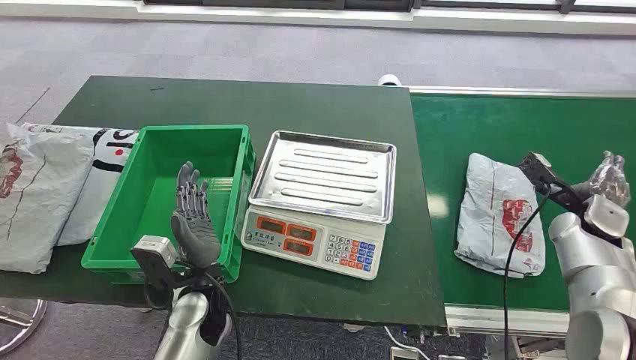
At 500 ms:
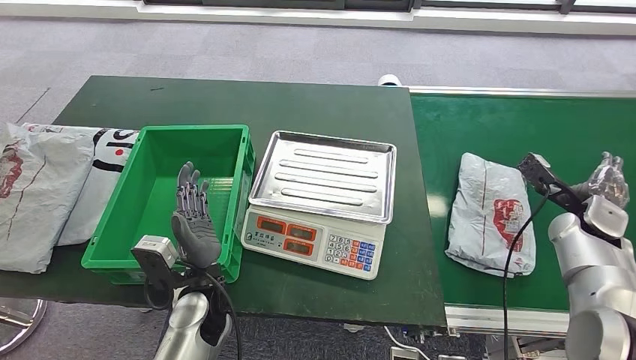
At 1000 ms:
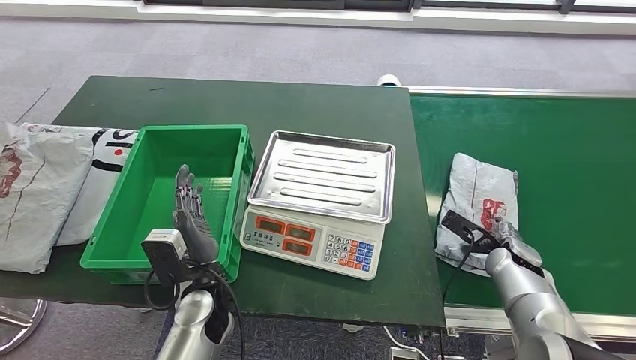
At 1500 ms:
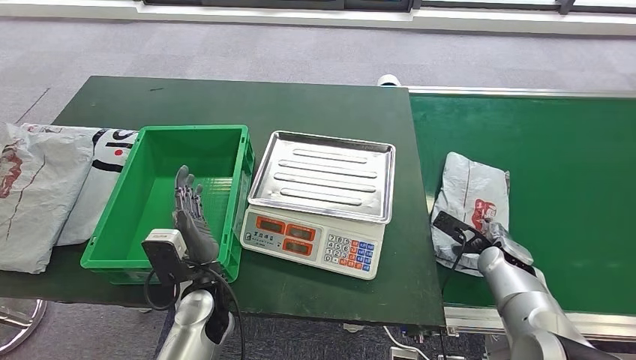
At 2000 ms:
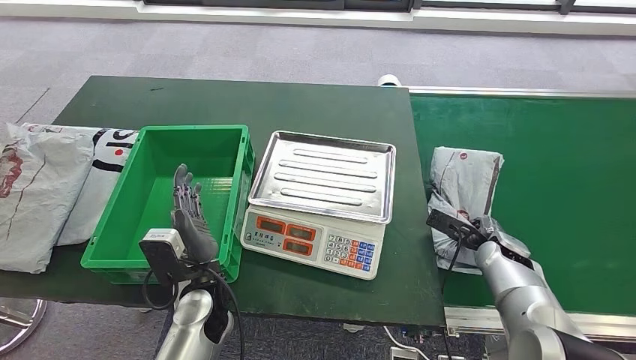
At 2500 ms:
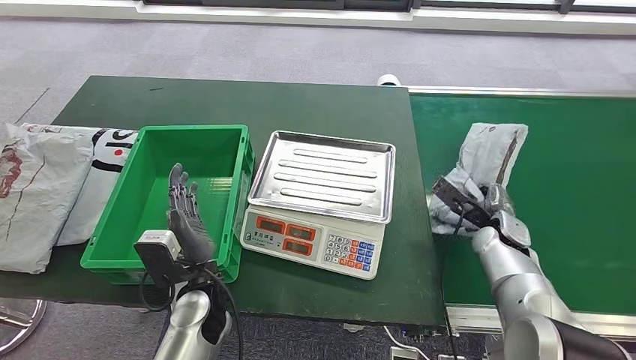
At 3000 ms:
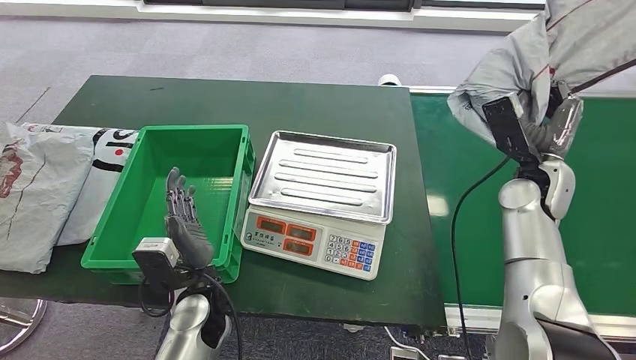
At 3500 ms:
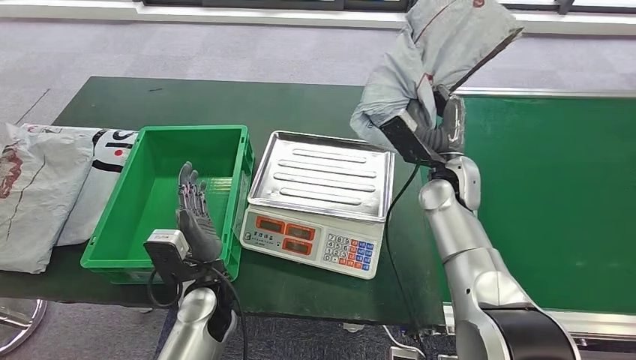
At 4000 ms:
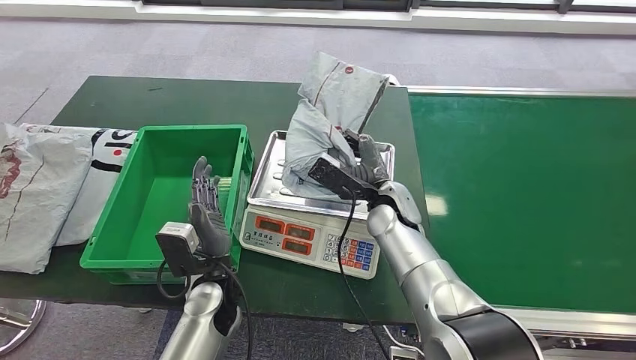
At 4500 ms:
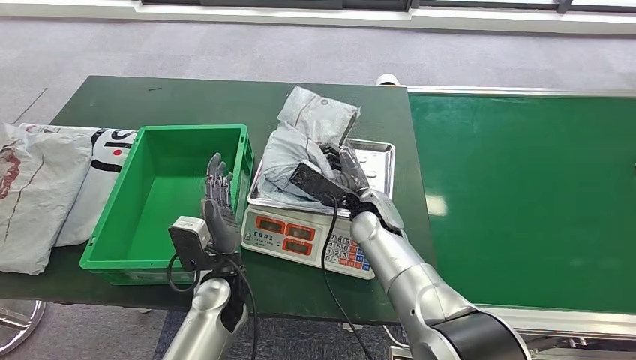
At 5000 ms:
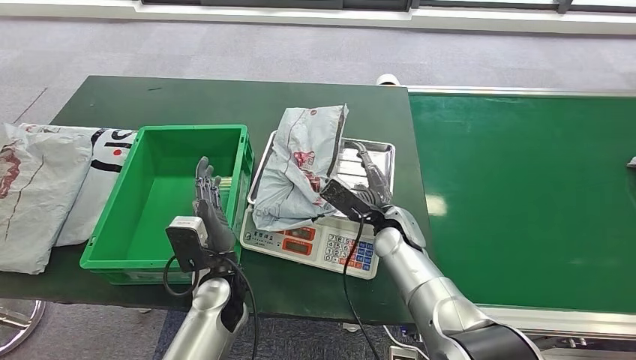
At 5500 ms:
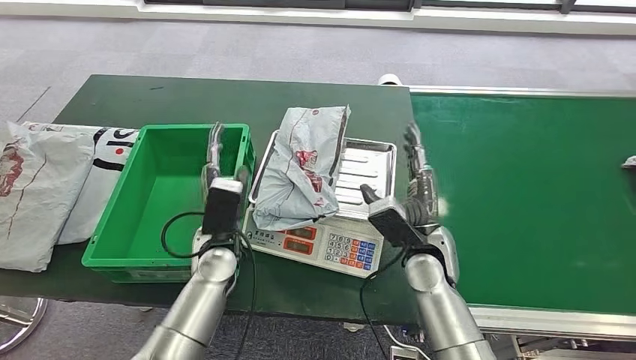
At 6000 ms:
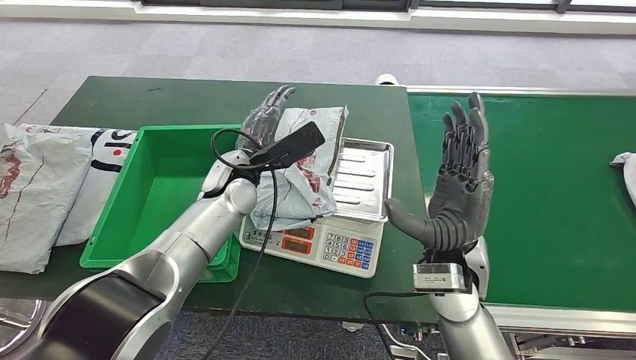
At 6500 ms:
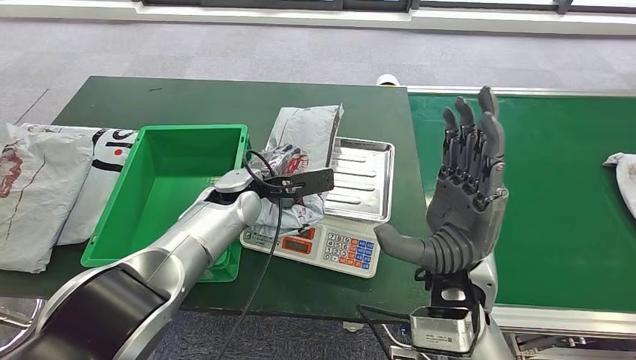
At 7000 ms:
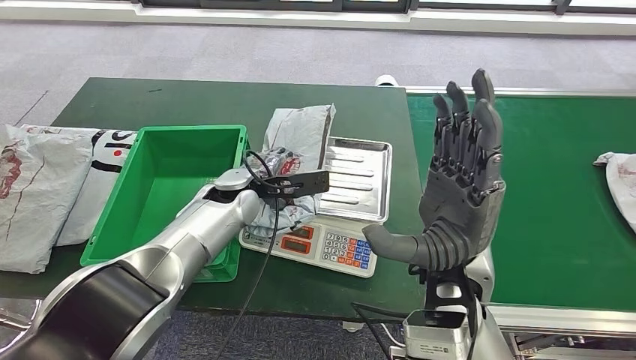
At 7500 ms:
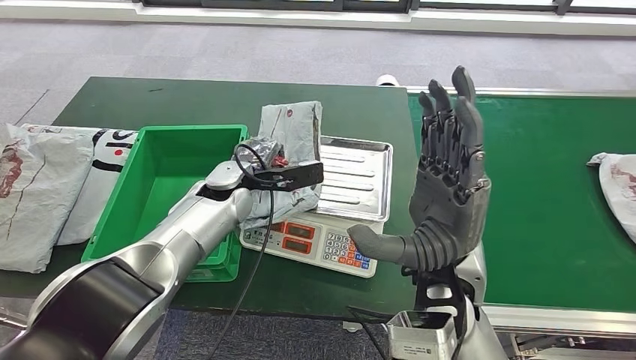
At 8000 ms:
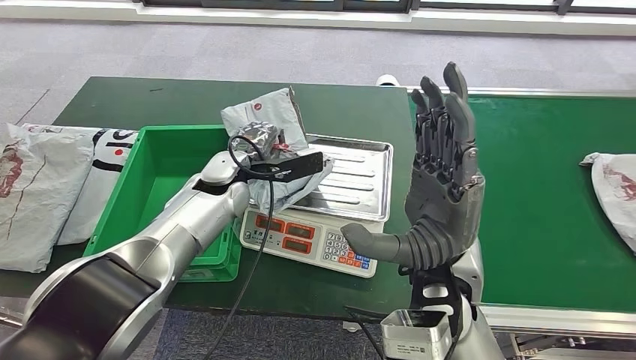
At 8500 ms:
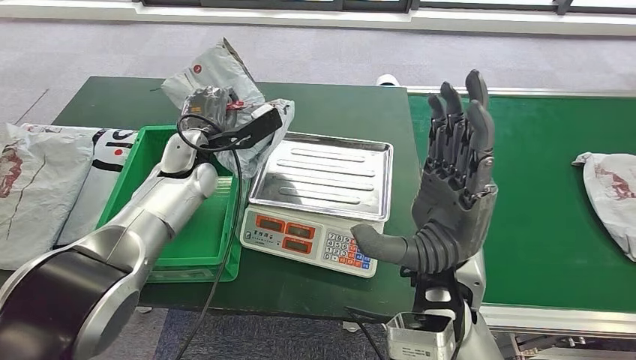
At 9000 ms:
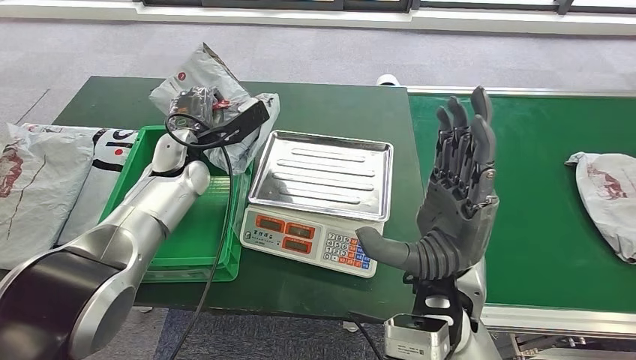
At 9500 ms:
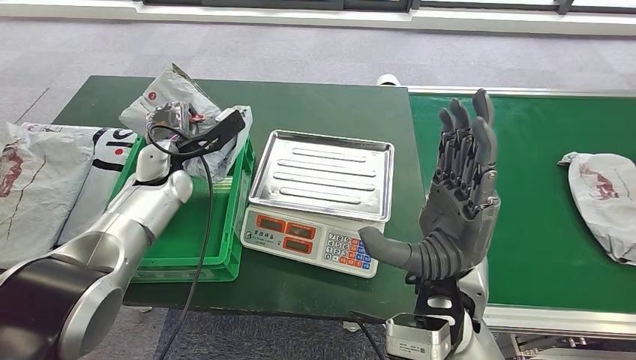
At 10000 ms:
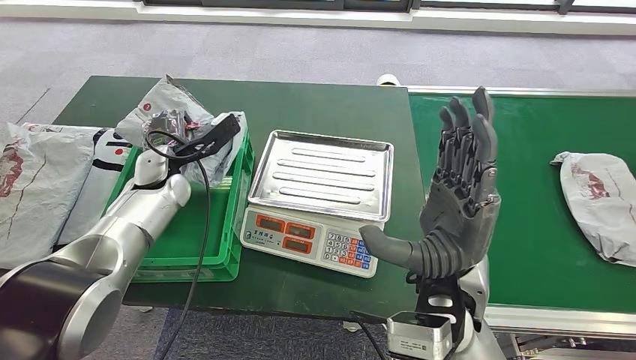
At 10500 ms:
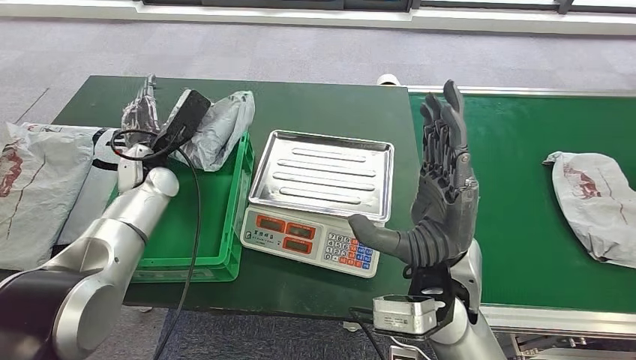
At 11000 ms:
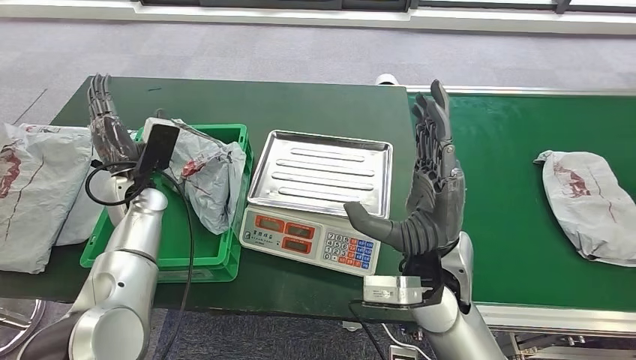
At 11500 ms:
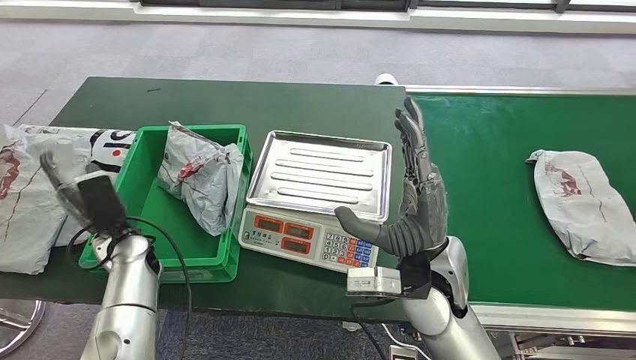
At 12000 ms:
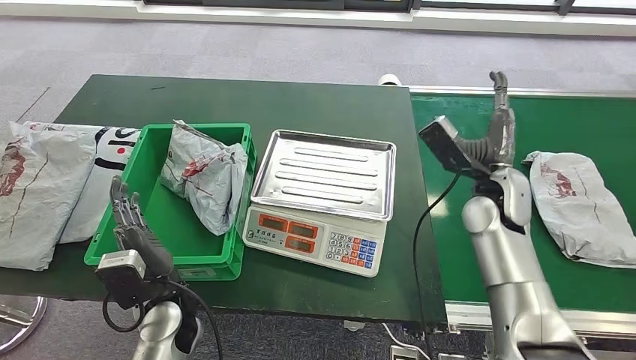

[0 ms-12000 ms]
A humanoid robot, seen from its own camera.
Step, 0 ms to 2500 ms: Take the parcel off the conveyor belt.
Step, 3000 ms to 5500 ms: Place the parcel onto the inbound machine.
Step, 6000 ms to 9000 ms: Pick up the parcel from the inbound machine.
Step, 9500 ms to 11000 ms: Put the parcel inside the courier box.

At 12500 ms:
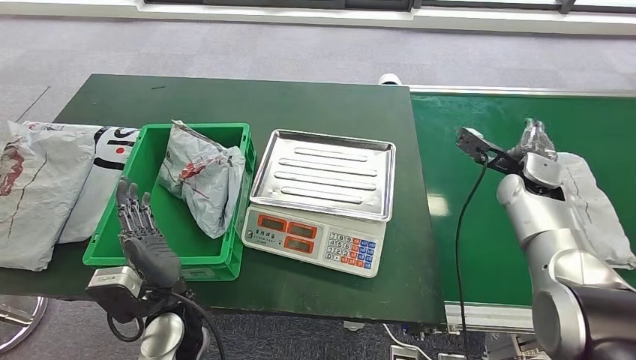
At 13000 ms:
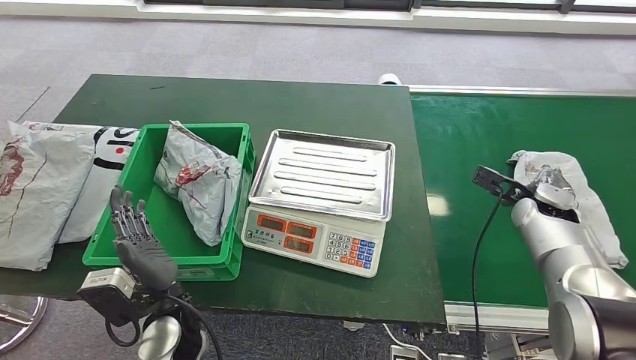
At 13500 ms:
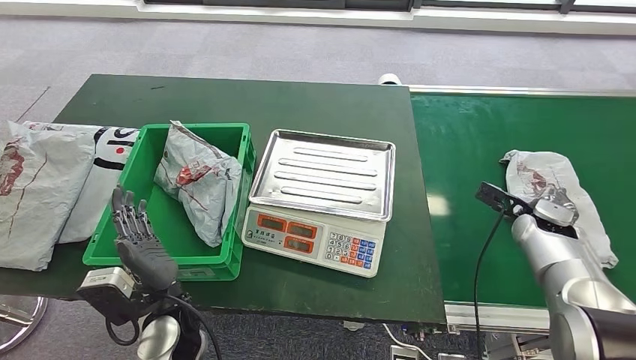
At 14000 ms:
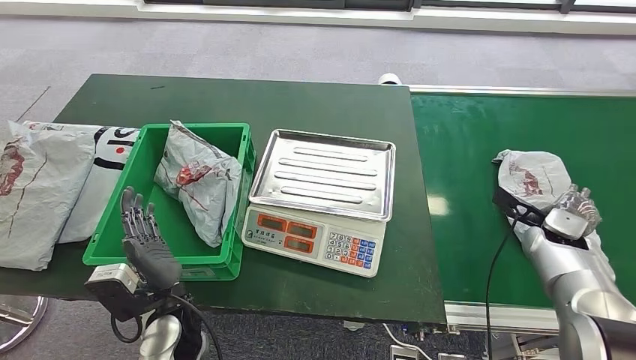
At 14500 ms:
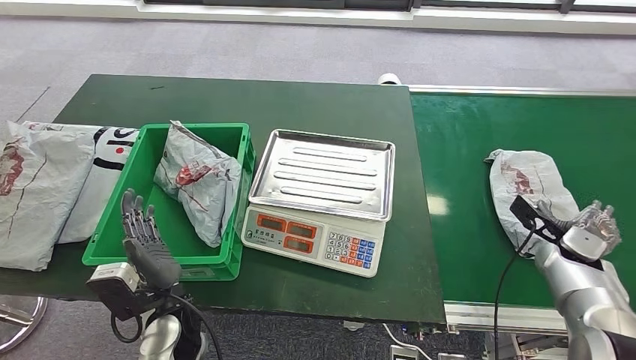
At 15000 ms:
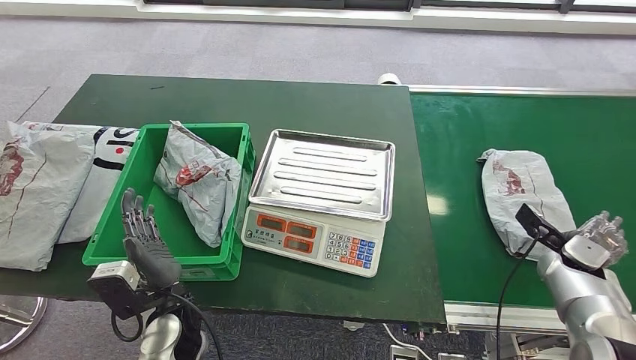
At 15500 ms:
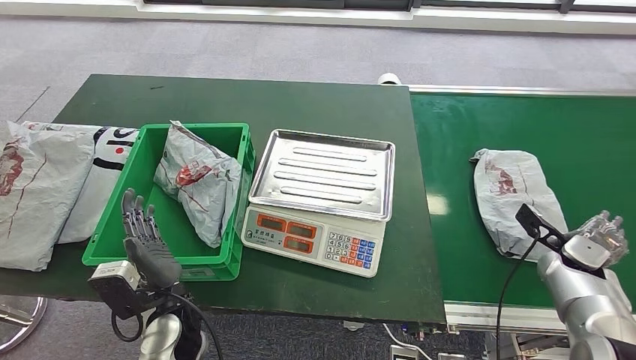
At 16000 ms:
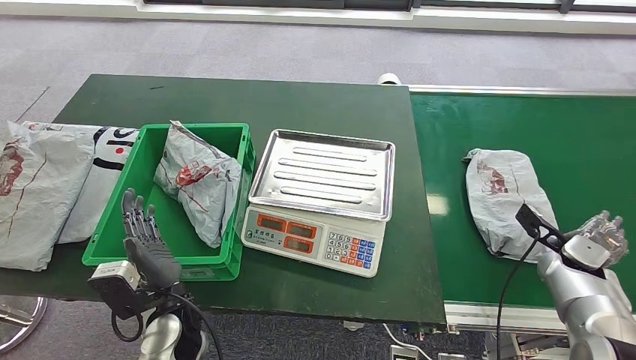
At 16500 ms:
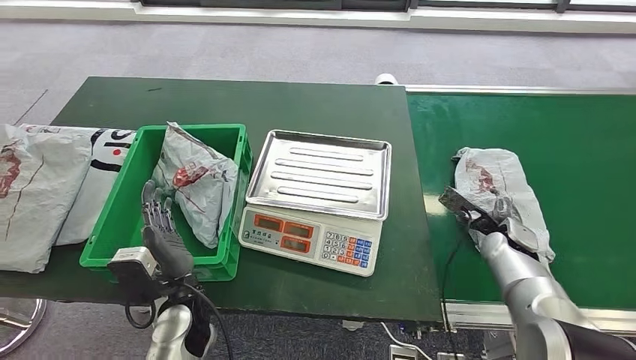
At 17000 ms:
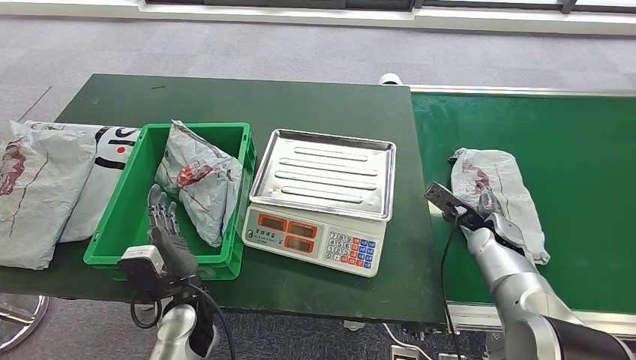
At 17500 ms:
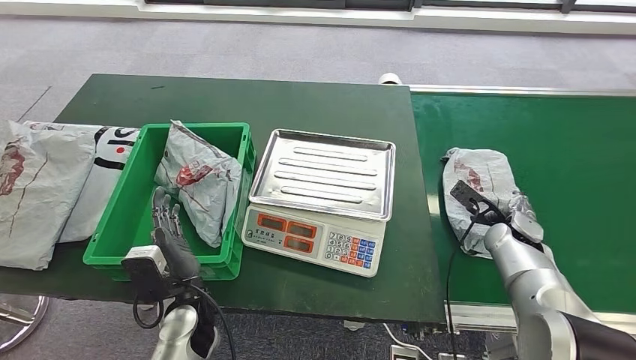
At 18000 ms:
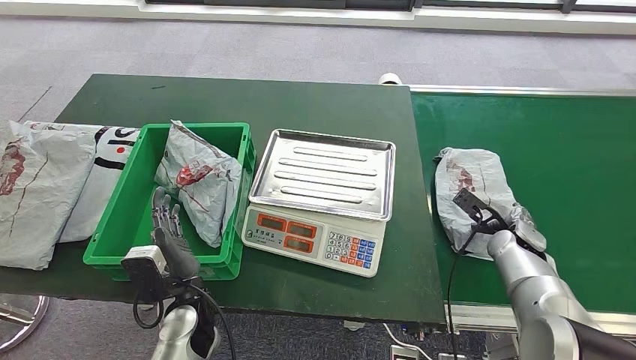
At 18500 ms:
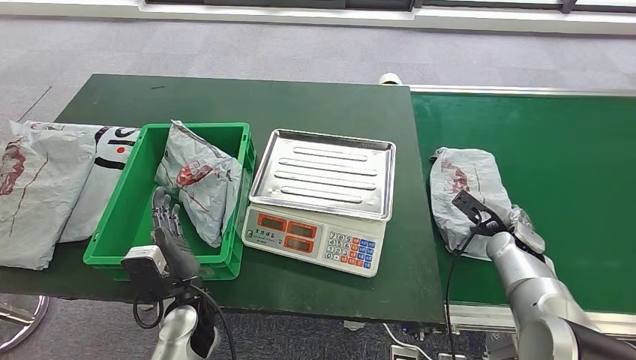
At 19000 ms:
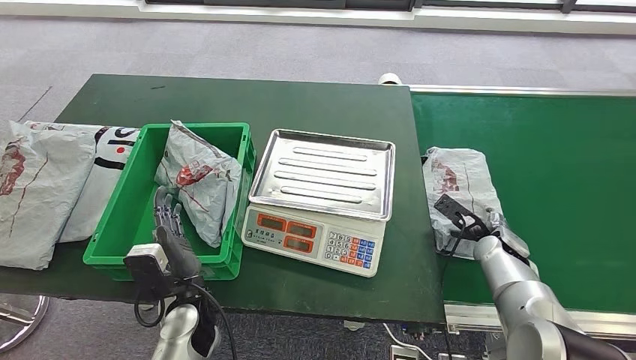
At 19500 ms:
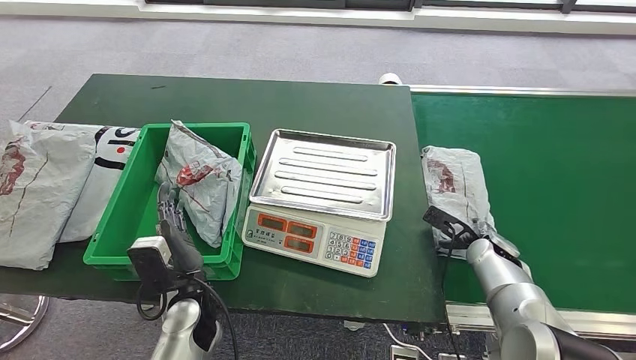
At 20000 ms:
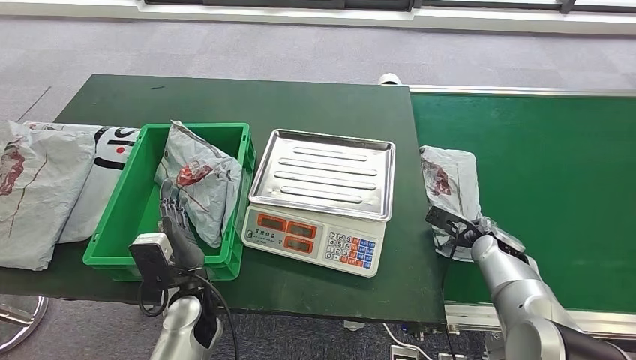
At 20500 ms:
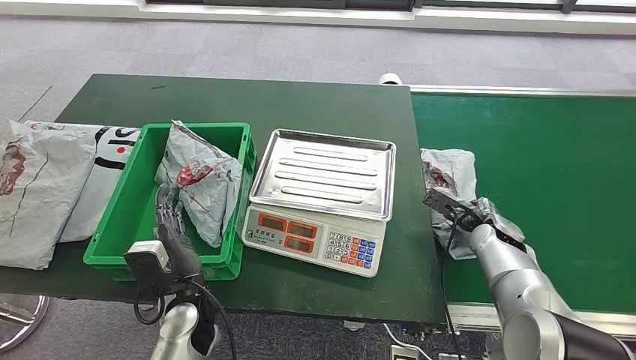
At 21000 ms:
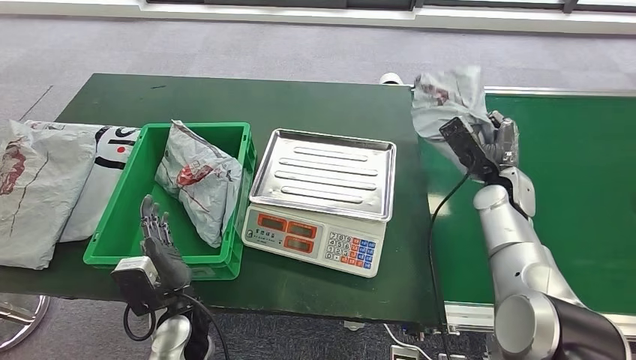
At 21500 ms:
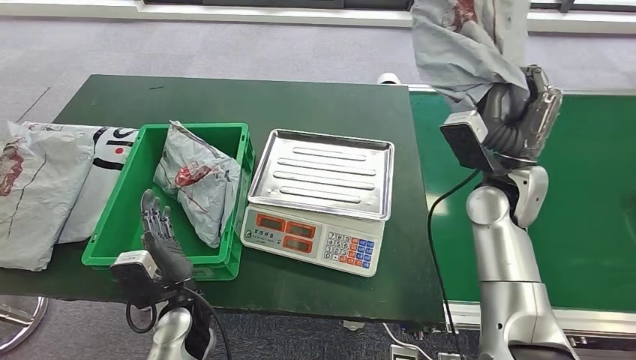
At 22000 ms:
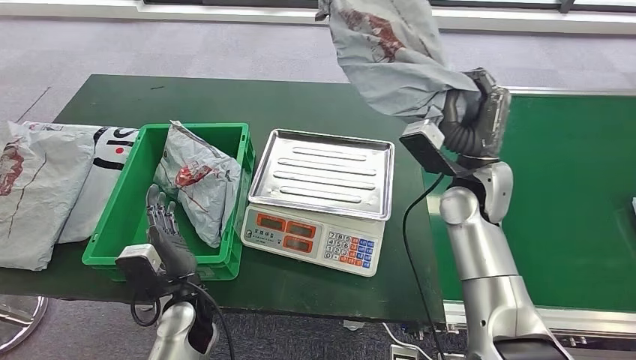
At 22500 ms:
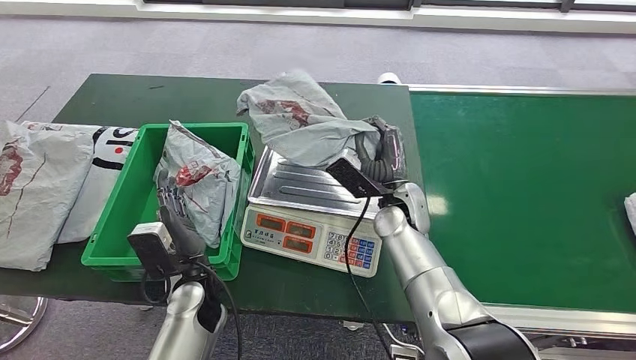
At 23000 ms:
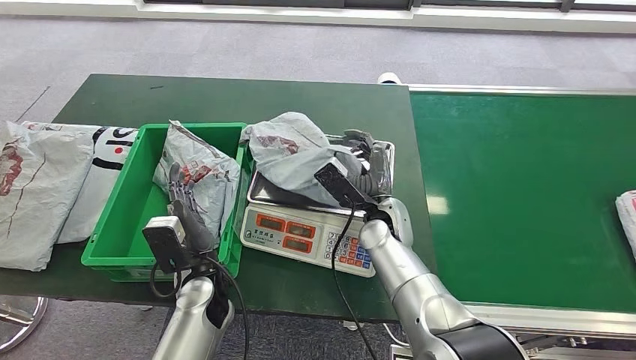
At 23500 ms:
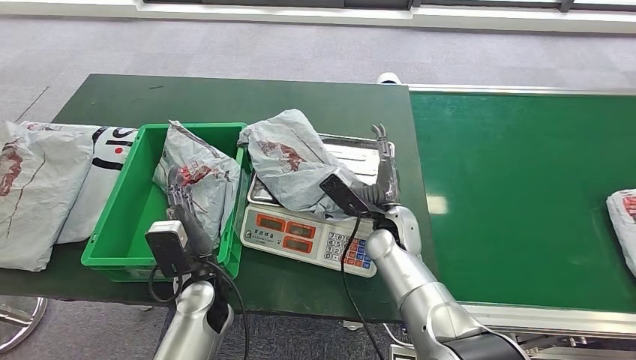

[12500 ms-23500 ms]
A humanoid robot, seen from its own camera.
Step, 16000 ms to 21000 ms: Pick up the parcel from the conveyor belt.
12500 ms to 14500 ms: The right hand shifts approximately 15 cm downward, backward and to the right.
14500 ms to 16000 ms: The hands make only small movements.
16000 ms to 18000 ms: The right hand shifts about 10 cm to the left.
18000 ms to 20000 ms: The hands make only small movements.
20000 ms to 21500 ms: The right hand travels upward by about 15 cm.
